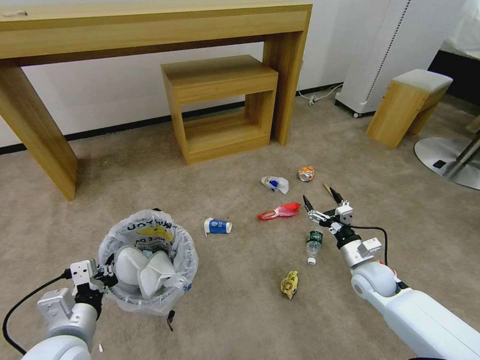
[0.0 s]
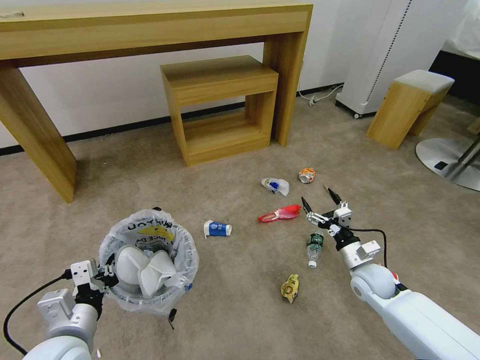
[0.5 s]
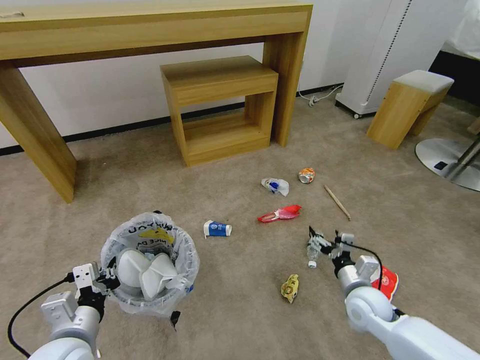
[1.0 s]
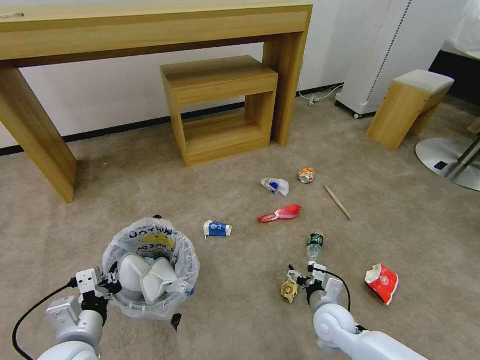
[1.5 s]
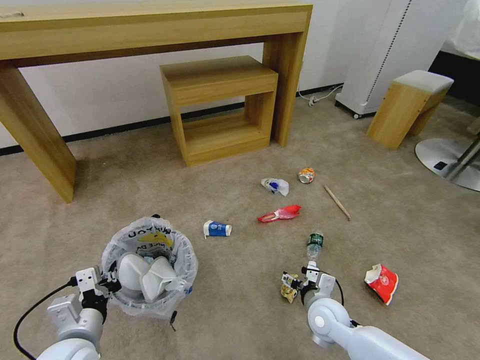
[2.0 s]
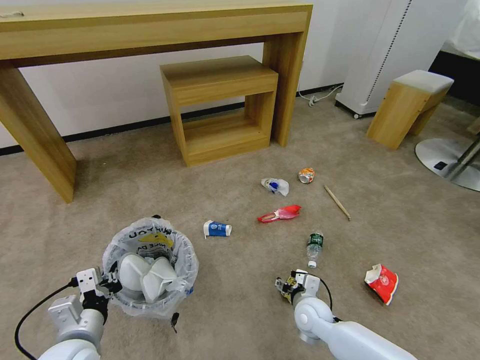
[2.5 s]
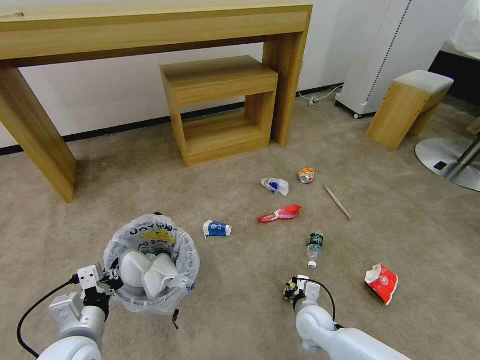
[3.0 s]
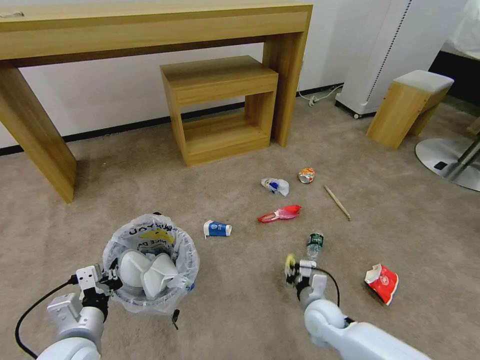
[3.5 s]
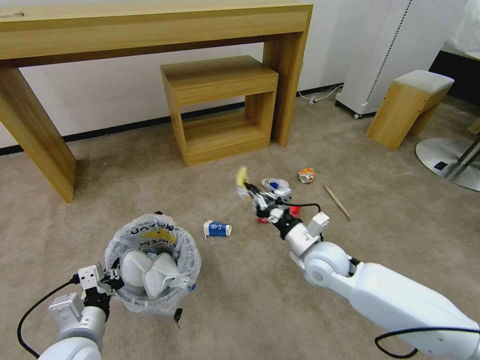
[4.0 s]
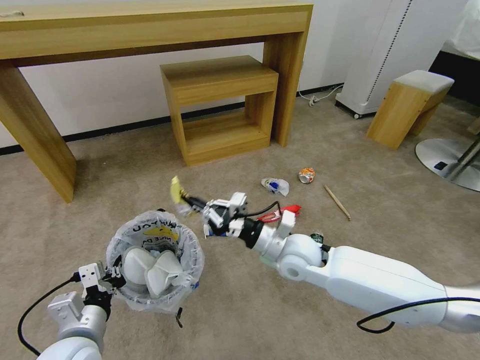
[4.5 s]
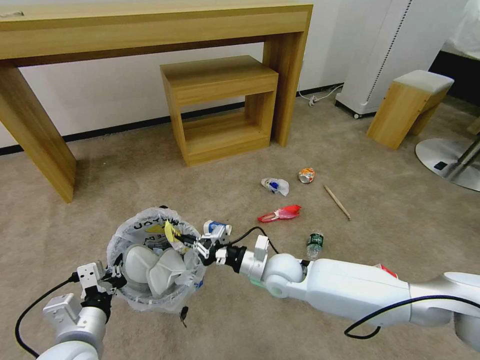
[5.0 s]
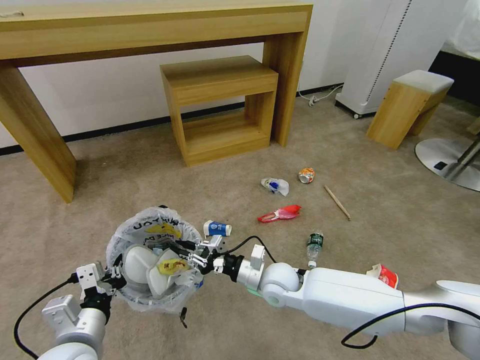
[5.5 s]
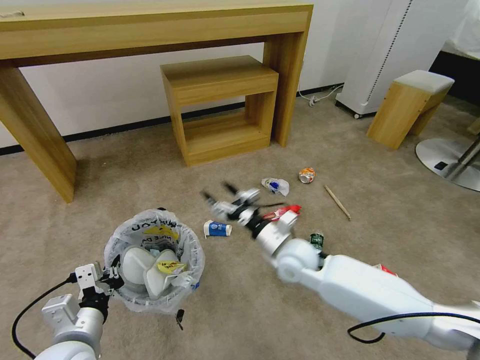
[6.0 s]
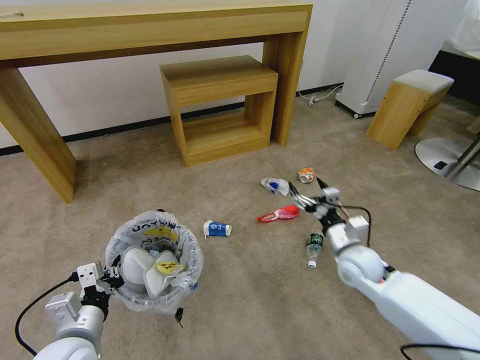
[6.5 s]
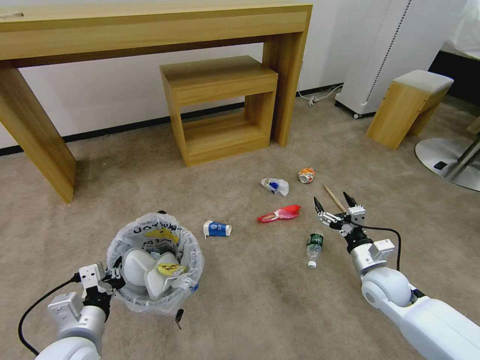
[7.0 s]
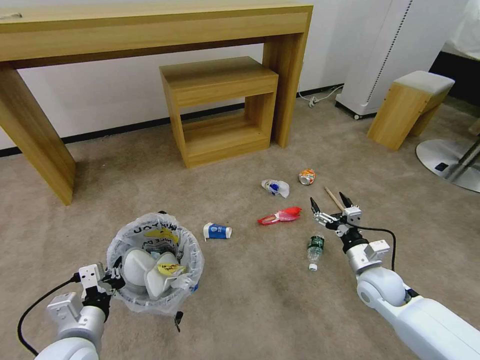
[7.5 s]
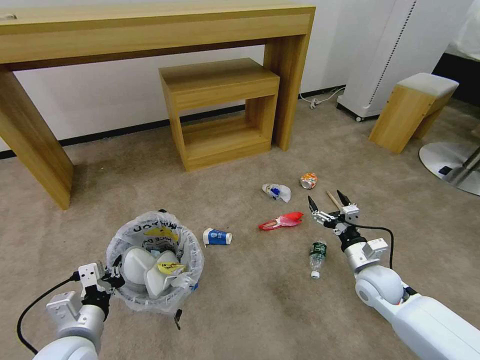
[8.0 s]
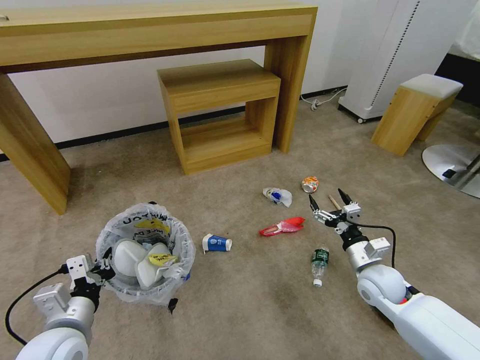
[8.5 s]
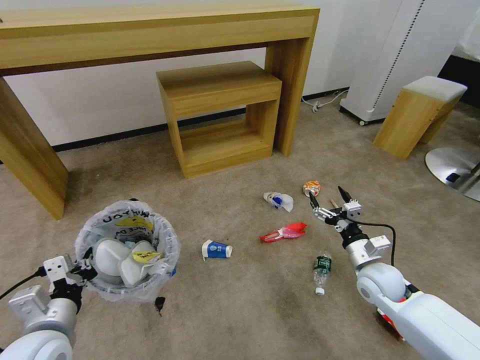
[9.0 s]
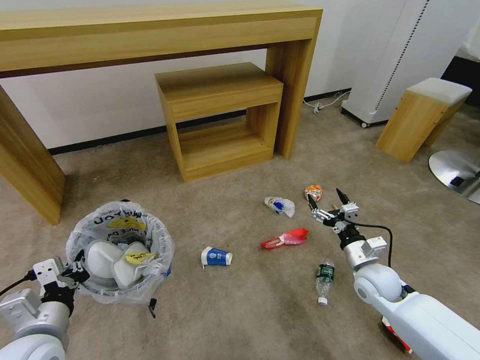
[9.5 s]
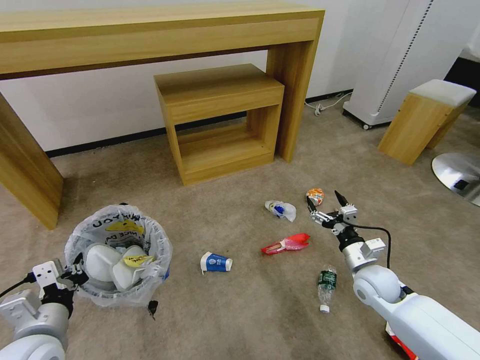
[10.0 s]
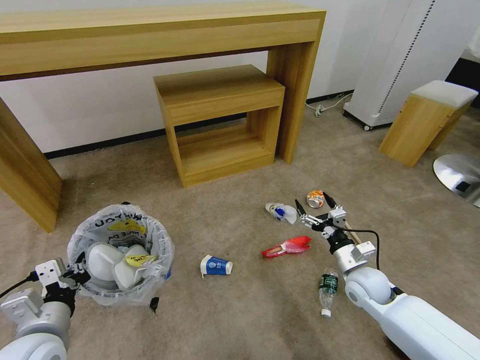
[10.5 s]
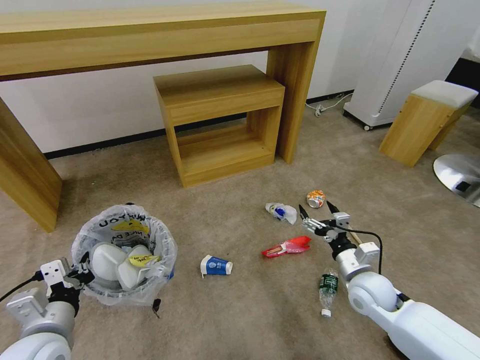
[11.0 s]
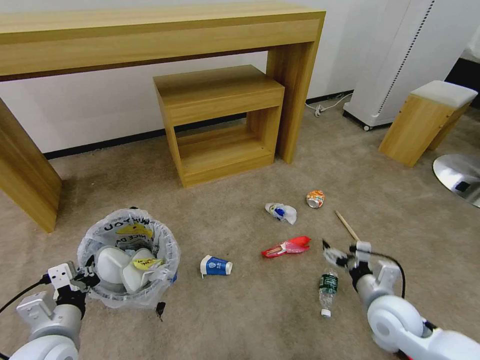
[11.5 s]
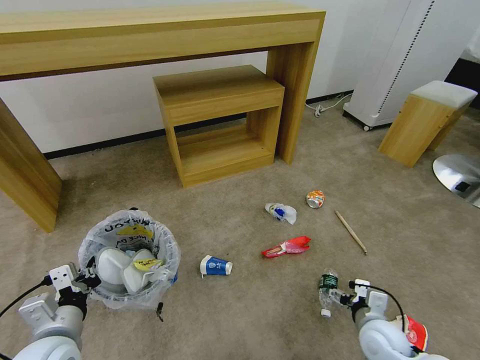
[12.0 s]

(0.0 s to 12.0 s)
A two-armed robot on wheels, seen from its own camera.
Task of the whole recording: Pick up the trash bin and place the garbage on the floor into it.
0.0 s - 2.0 s: The right gripper is displaced to the left and backward by some 15 cm.
2.0 s - 4.0 s: The right gripper shifts roughly 15 cm upward and forward, and closes.
4.0 s - 6.0 s: The right gripper shifts approximately 10 cm to the left, and opens its fingers.
6.0 s - 8.0 s: The right gripper is displaced to the right by about 20 cm.
8.0 s - 10.0 s: The left gripper shifts by roughly 5 cm.
10.0 s - 12.0 s: The right gripper heads backward, covering about 10 cm.

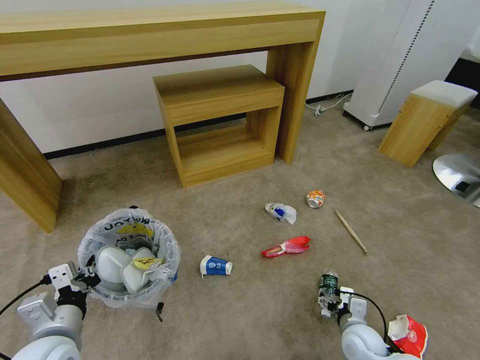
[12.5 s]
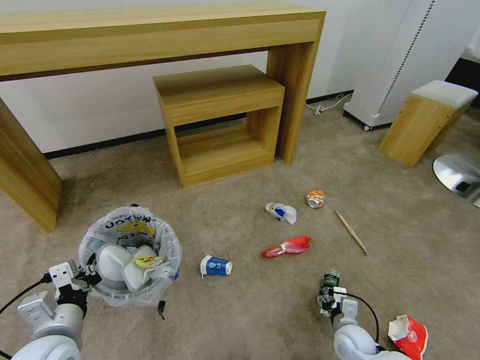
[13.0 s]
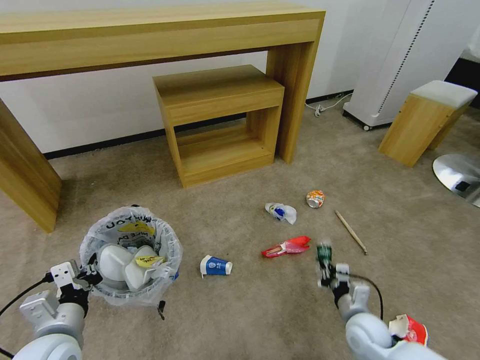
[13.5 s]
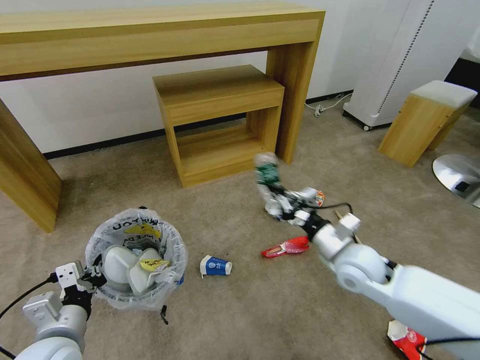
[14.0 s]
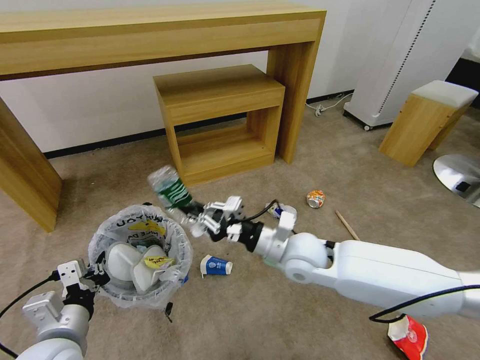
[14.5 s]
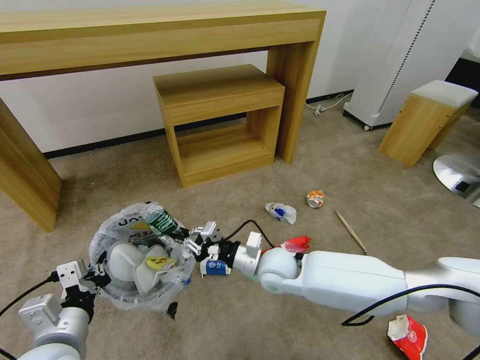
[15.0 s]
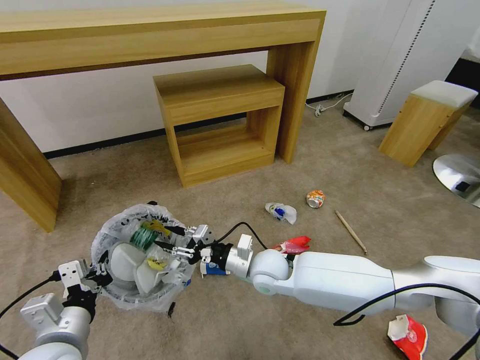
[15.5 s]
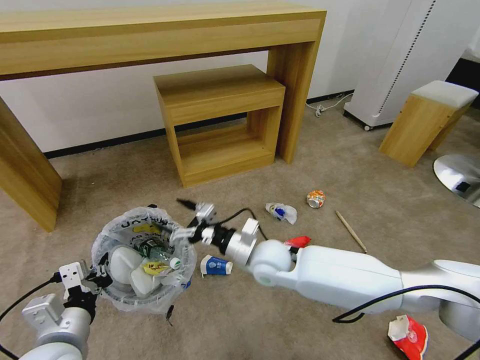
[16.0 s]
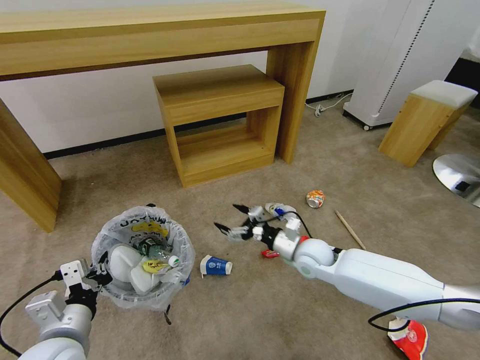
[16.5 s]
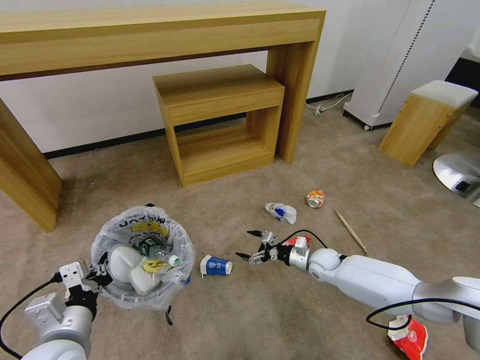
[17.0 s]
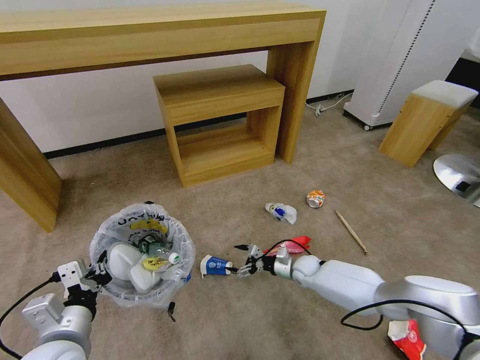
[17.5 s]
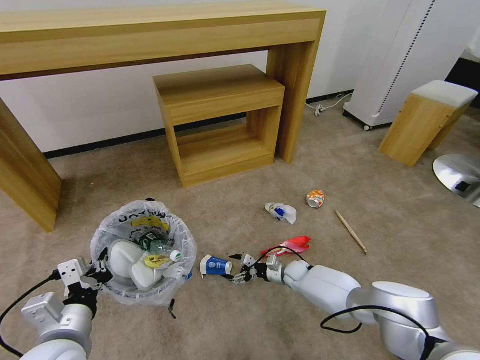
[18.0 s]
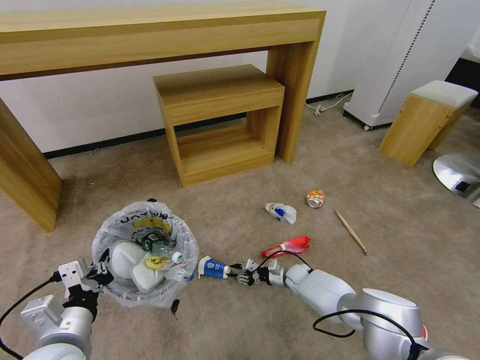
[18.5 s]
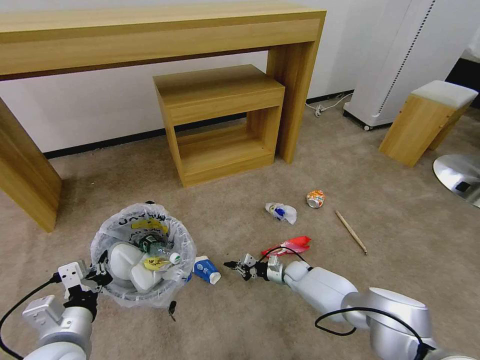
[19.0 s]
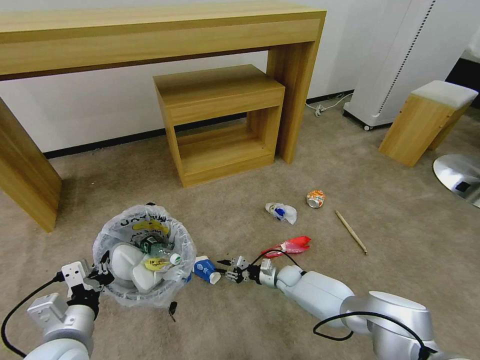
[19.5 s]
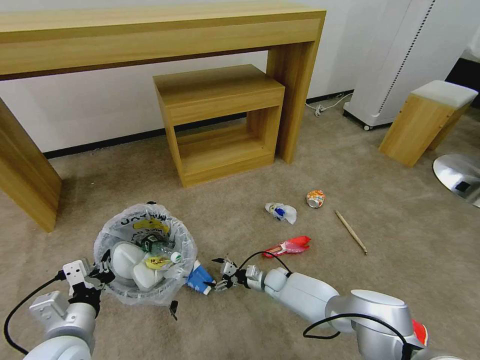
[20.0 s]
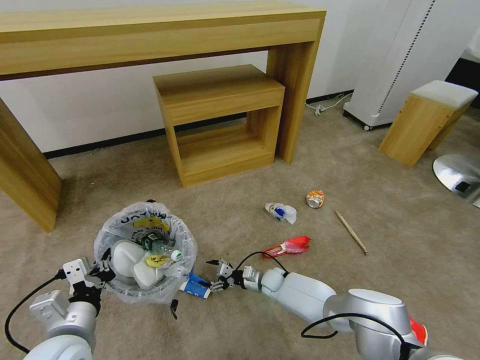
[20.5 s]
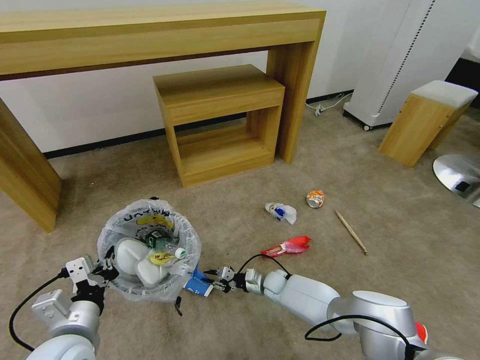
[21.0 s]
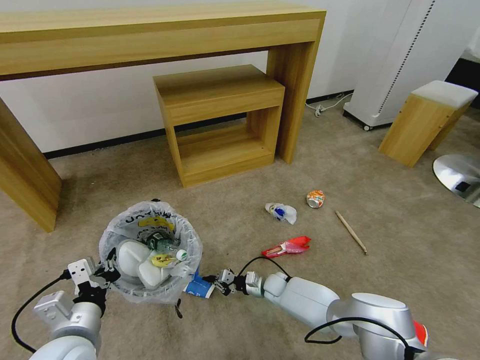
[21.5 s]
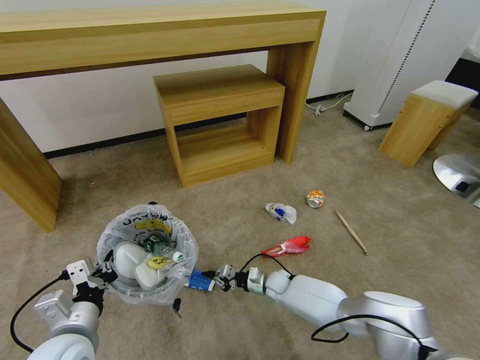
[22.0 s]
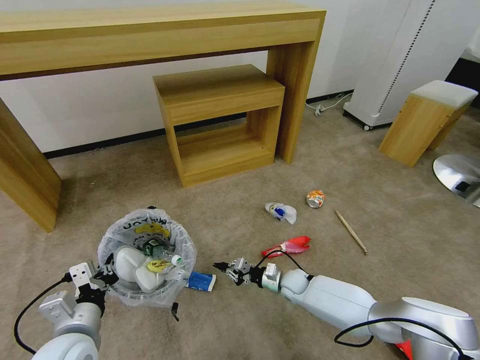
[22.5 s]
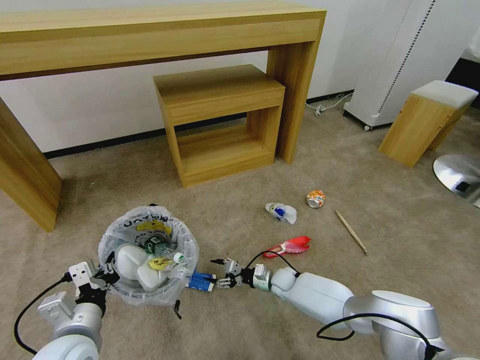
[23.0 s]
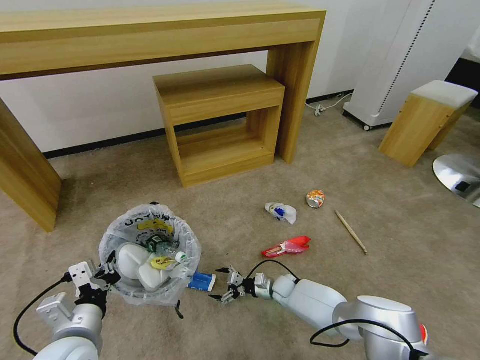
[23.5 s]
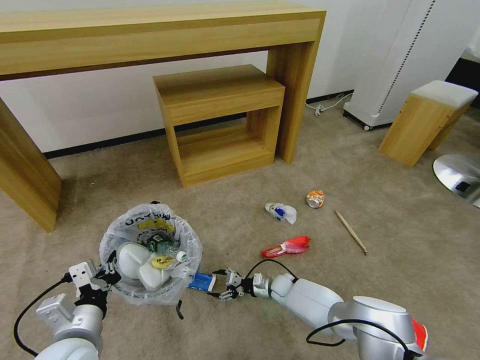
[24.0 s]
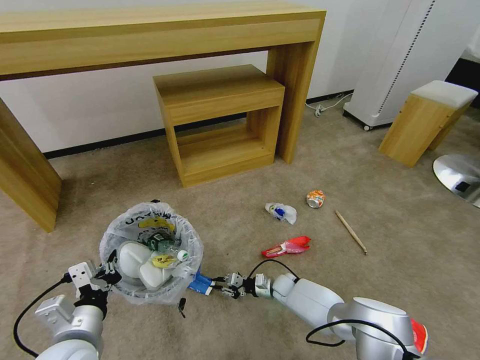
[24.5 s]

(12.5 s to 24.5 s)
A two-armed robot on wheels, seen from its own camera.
Task of the whole recording: Pick up the trash bin and place the garbage on the floor into it.
12.5 s - 14.5 s: The right gripper is displaced upward, to the left and forward by about 30 cm, and closes.
14.5 s - 16.5 s: The right gripper travels downward, to the right and forward by some 10 cm, and opens its fingers.
16.5 s - 18.5 s: The right gripper moves downward, approximately 25 cm, and closes its fingers.
18.5 s - 20.5 s: The right gripper travels to the left by approximately 10 cm, and opens up.
20.5 s - 22.5 s: The right gripper travels to the right by approximately 5 cm, and closes its fingers.
22.5 s - 24.5 s: The right gripper is displaced downward by about 5 cm, and opens and closes again.

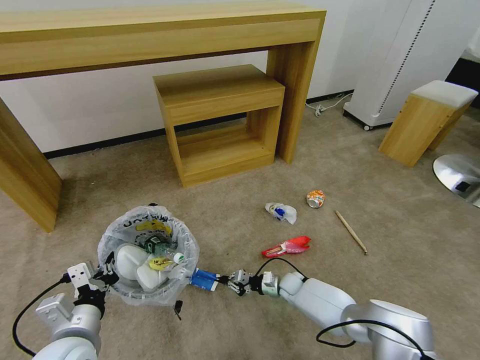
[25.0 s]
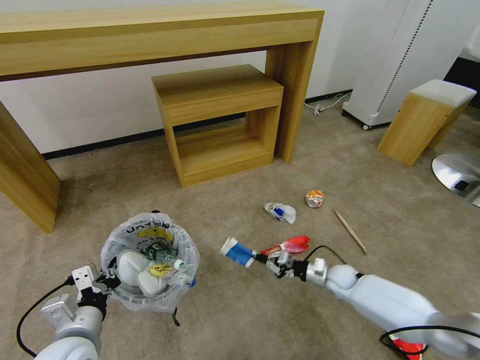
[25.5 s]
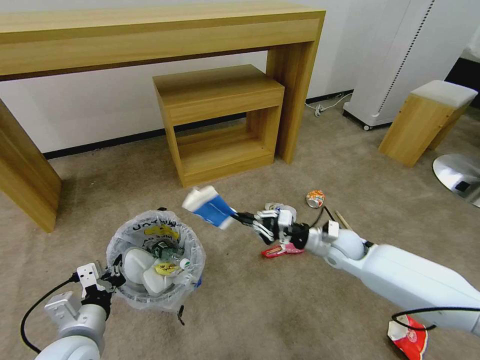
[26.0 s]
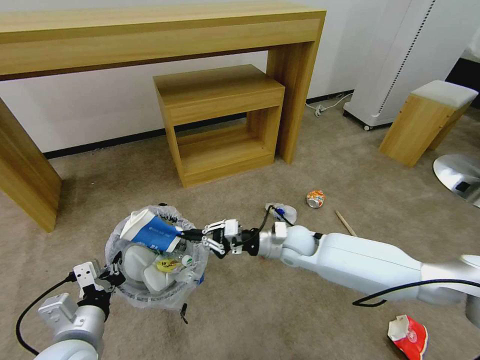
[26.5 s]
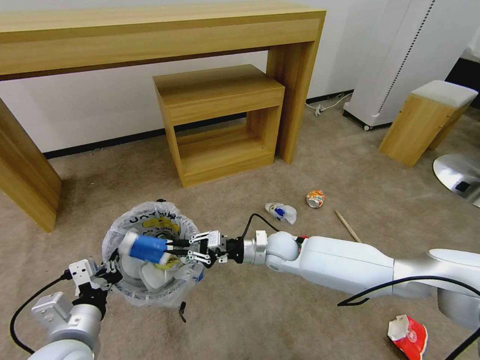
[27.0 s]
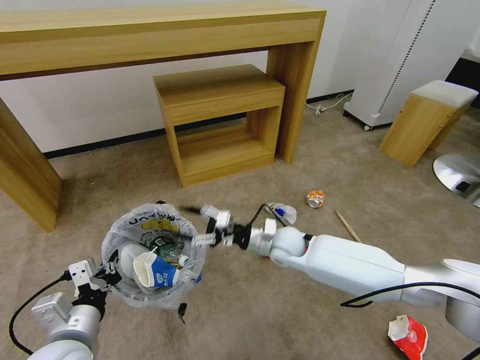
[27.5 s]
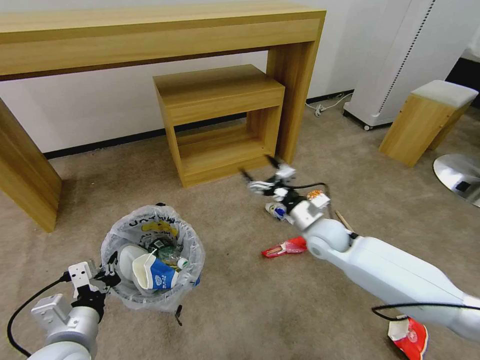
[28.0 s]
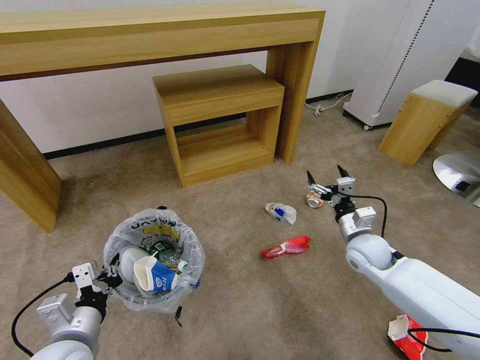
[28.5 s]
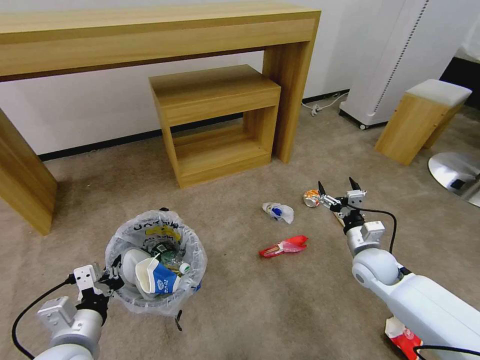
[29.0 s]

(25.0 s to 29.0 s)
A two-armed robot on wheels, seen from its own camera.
Task of the whole recording: Pick up the trash bin and place the garbage on the floor into it.
25.0 s - 27.0 s: The right gripper travels upward by roughly 25 cm.
27.0 s - 29.0 s: The right gripper goes roughly 25 cm to the right, and opens up.
